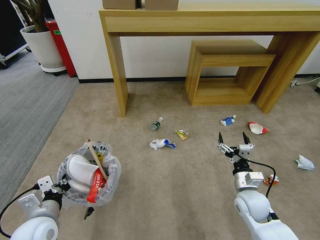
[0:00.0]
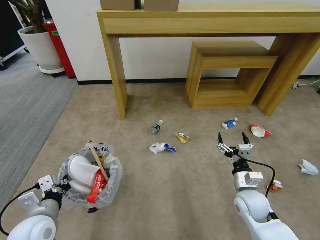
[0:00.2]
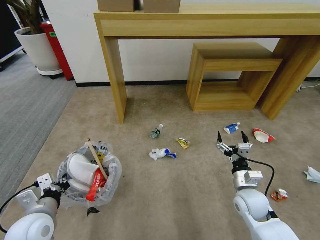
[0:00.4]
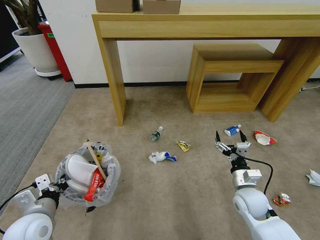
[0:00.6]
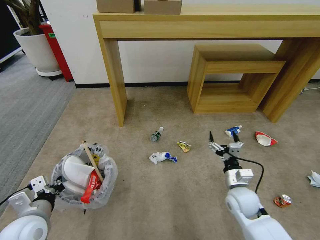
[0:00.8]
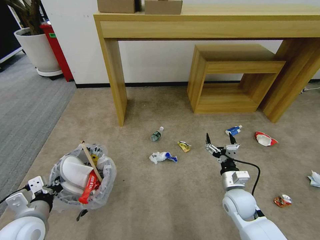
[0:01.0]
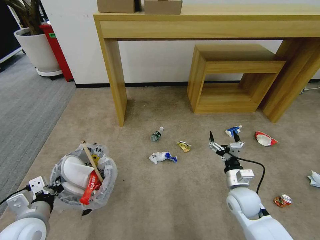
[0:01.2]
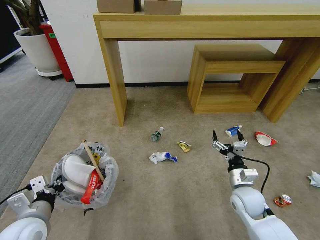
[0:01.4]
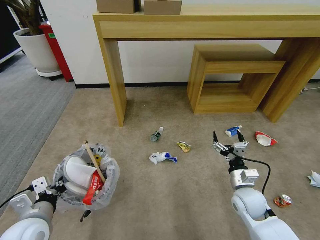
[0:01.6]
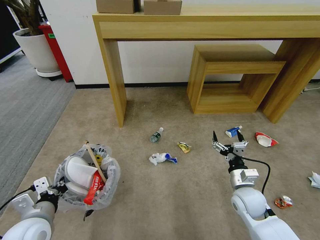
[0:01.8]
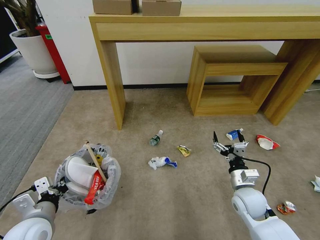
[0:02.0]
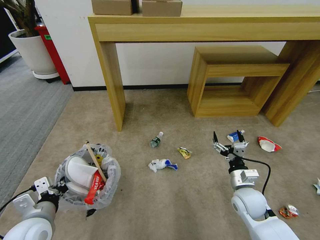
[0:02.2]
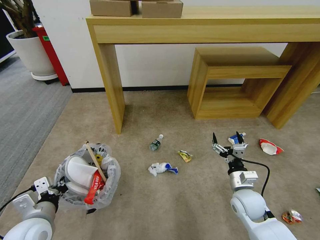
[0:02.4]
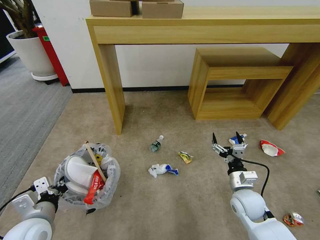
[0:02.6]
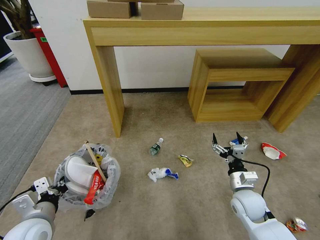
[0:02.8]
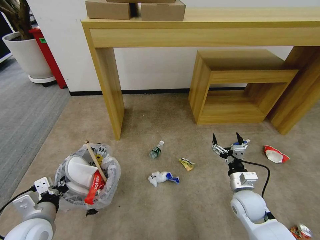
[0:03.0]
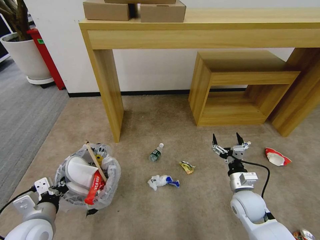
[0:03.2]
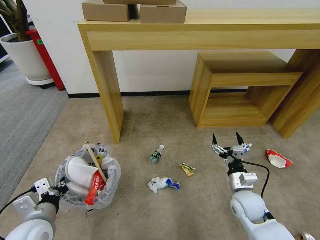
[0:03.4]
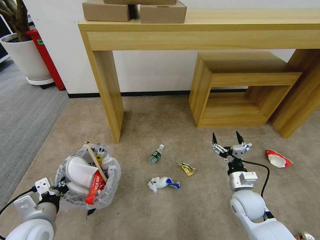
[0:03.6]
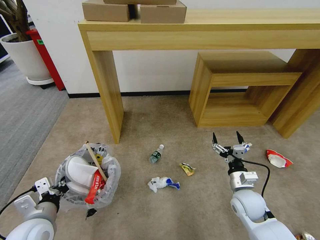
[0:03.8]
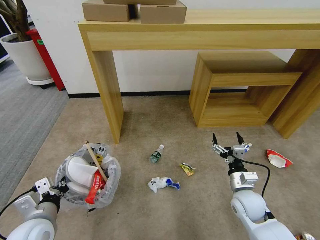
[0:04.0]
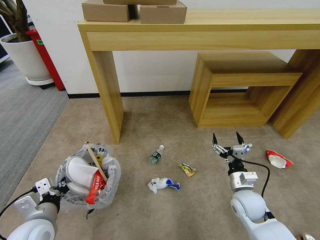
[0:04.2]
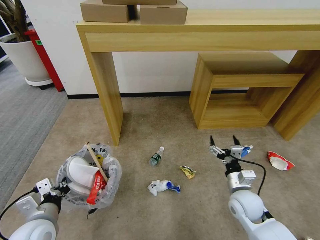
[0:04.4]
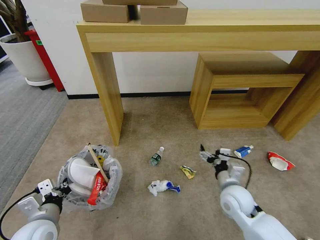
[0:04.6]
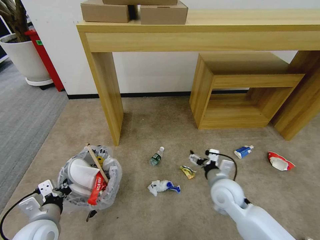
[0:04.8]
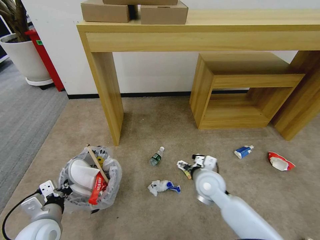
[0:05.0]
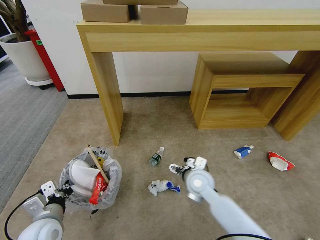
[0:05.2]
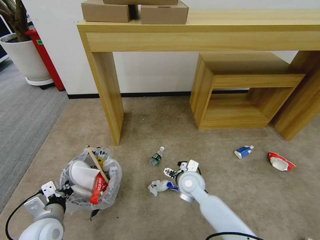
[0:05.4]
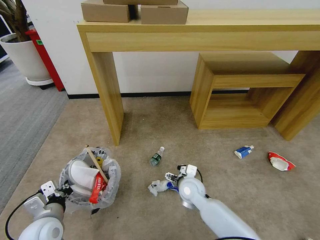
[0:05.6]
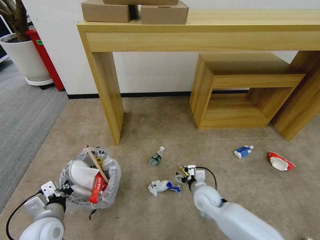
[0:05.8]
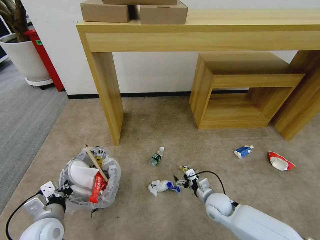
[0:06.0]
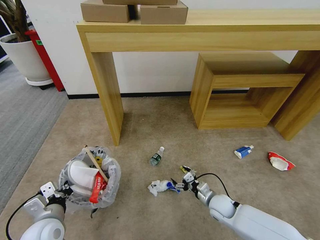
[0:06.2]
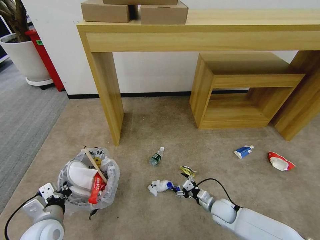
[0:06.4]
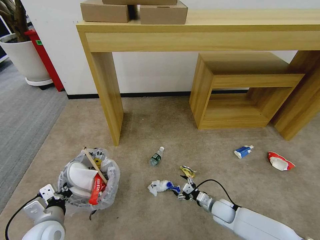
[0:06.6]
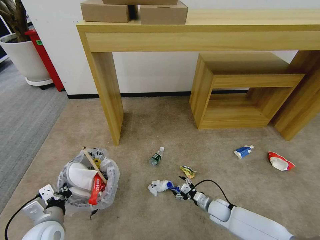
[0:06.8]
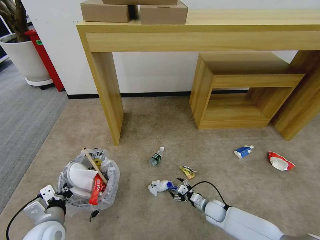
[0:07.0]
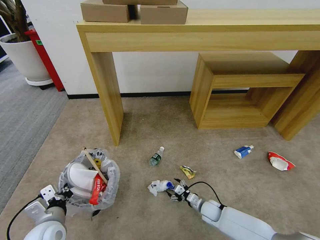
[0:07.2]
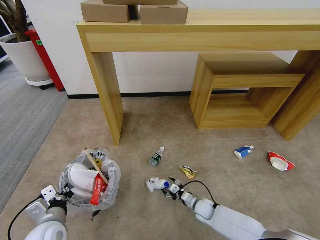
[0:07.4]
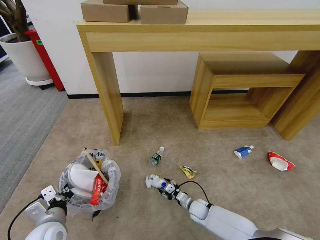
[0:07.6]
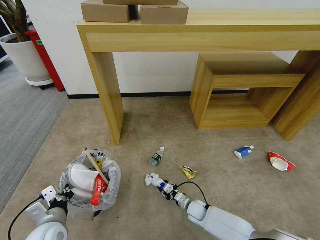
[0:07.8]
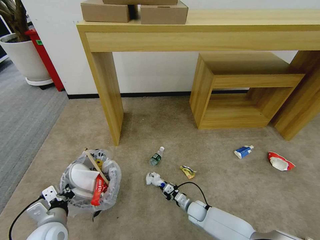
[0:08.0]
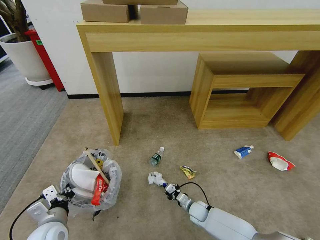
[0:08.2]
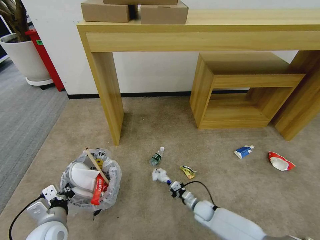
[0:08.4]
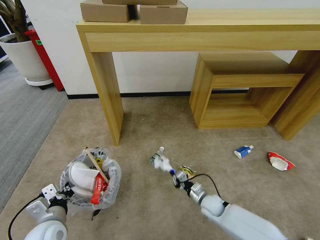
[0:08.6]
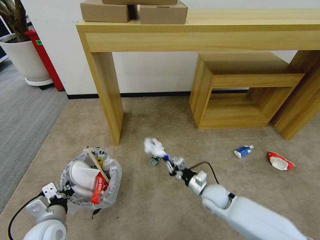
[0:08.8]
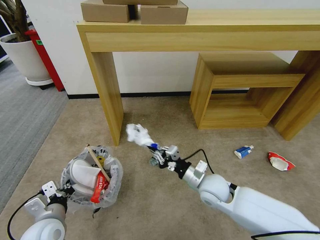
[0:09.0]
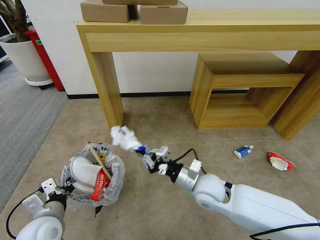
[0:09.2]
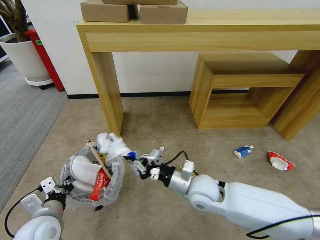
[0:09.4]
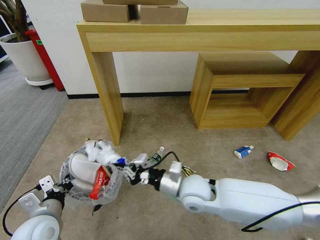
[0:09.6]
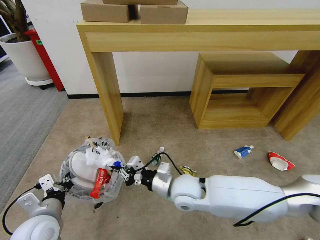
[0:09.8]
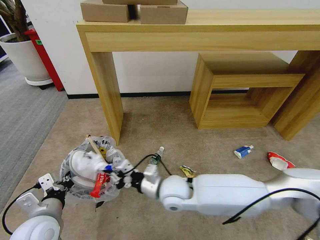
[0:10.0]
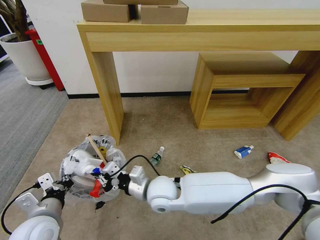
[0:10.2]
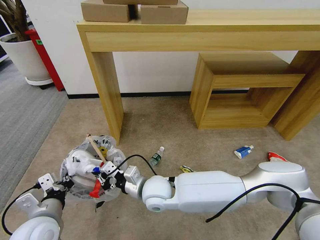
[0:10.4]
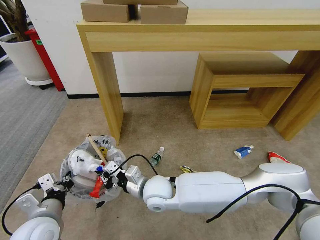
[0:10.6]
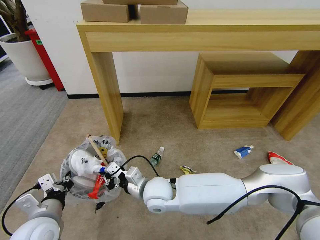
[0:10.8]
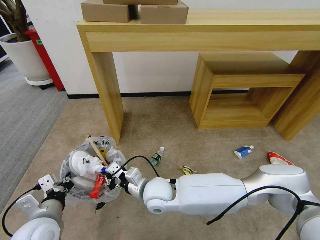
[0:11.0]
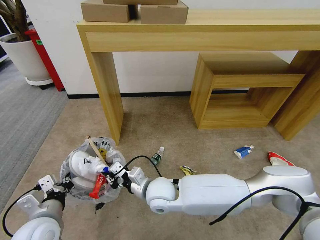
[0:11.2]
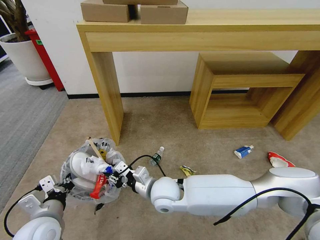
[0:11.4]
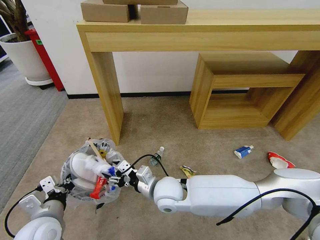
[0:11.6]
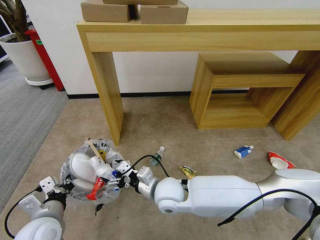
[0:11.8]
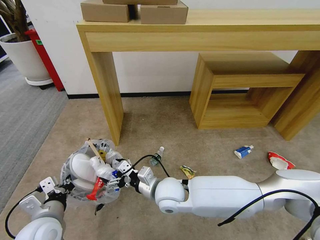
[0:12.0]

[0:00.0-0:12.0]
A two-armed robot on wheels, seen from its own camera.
Task of the whole recording: Pick up the trash bin and place the garbage on the floor into it.
0:03.0 to 0:04.4: Both grippers stay about where they are.
0:04.4 to 0:06.0: The right gripper travels downward and to the left by some 10 cm.
0:06.0 to 0:07.6: The right gripper shifts about 15 cm downward.
0:07.6 to 0:09.0: The right gripper moves upward, about 25 cm, and closes its fingers.
0:09.0 to 0:10.4: The right gripper moves to the left, approximately 20 cm; the left gripper changes place by some 5 cm.
0:10.4 to 0:12.0: The right gripper opens its fingers.

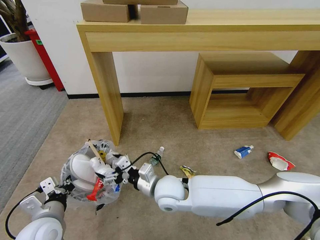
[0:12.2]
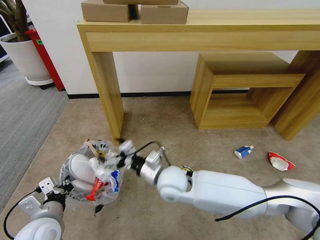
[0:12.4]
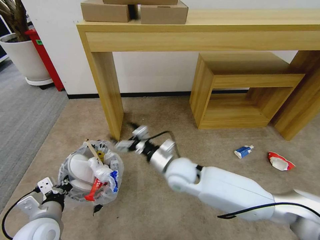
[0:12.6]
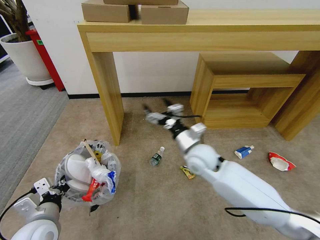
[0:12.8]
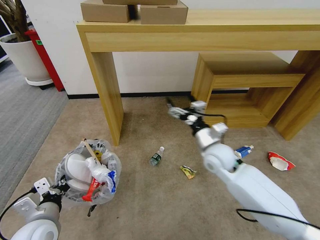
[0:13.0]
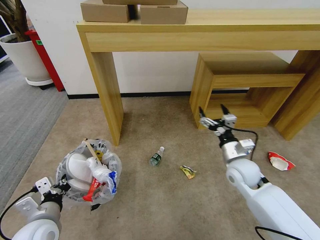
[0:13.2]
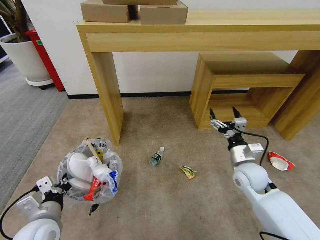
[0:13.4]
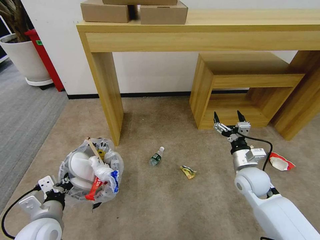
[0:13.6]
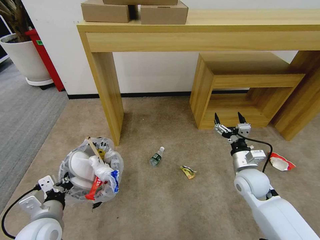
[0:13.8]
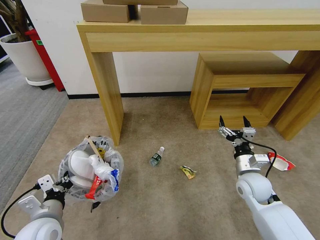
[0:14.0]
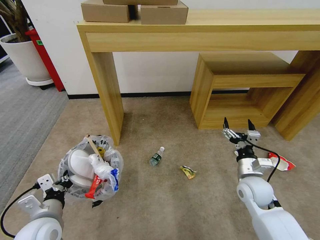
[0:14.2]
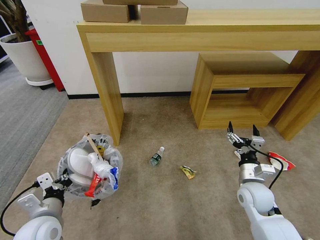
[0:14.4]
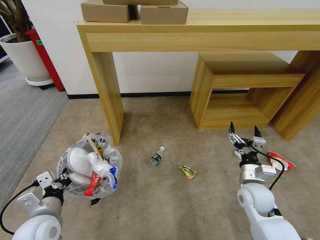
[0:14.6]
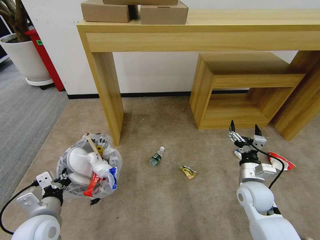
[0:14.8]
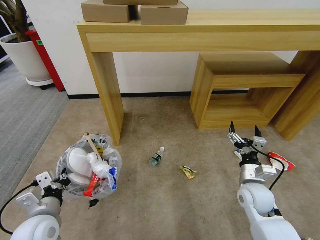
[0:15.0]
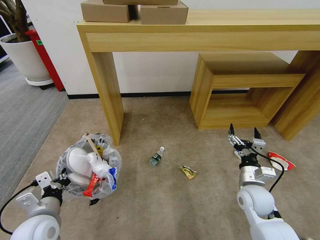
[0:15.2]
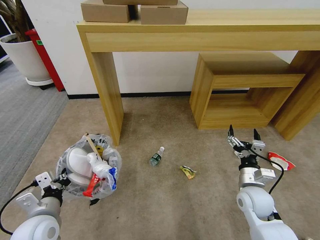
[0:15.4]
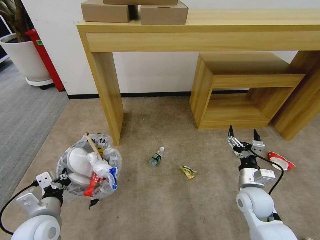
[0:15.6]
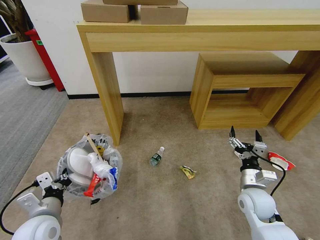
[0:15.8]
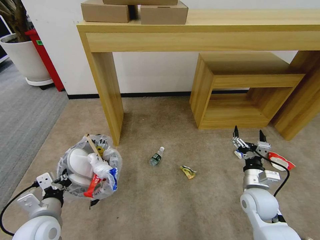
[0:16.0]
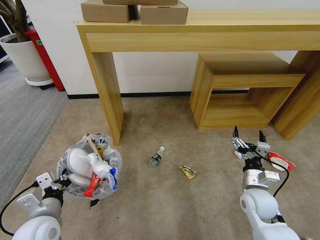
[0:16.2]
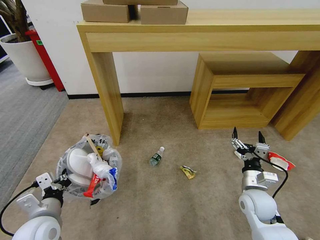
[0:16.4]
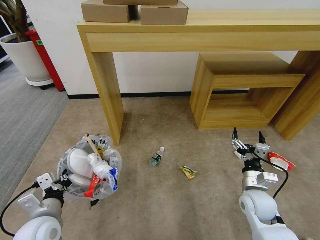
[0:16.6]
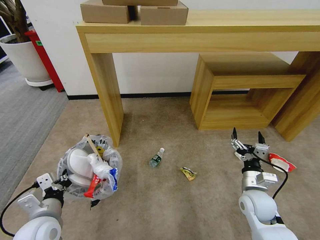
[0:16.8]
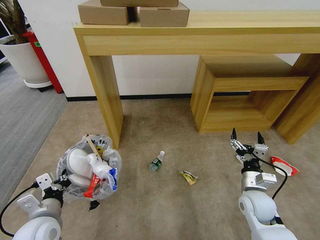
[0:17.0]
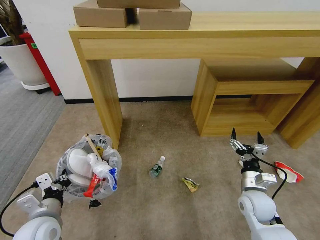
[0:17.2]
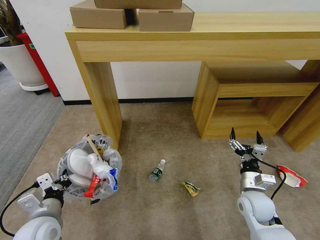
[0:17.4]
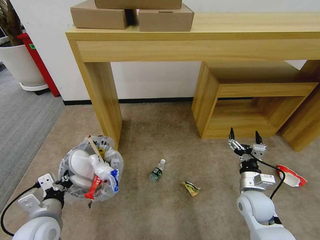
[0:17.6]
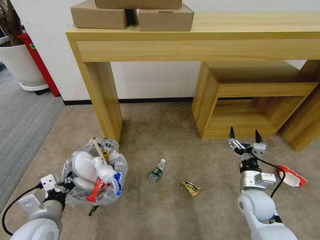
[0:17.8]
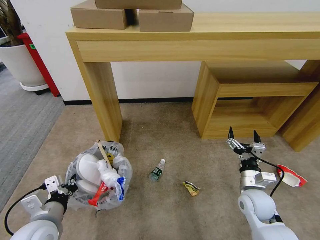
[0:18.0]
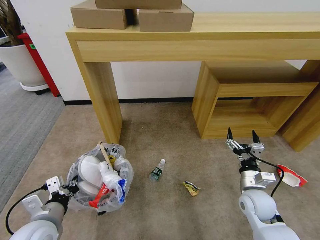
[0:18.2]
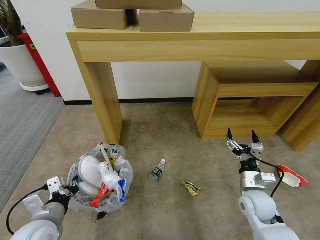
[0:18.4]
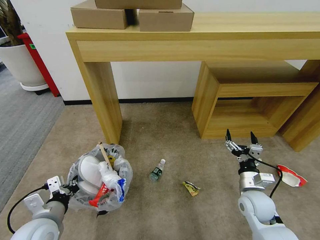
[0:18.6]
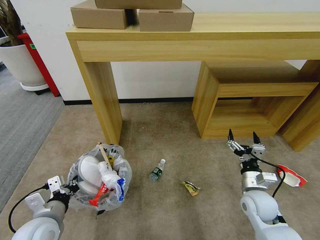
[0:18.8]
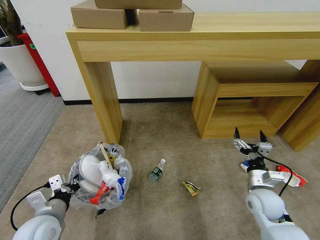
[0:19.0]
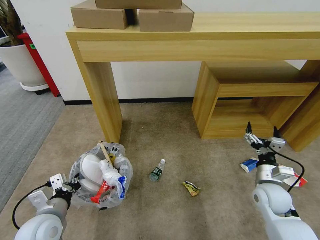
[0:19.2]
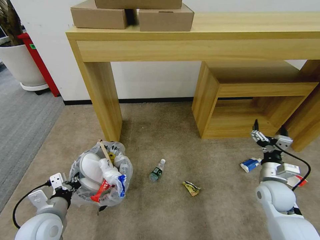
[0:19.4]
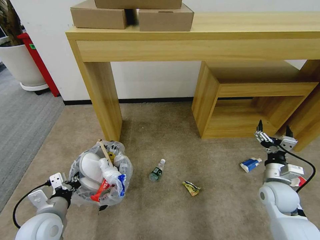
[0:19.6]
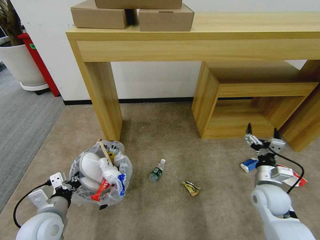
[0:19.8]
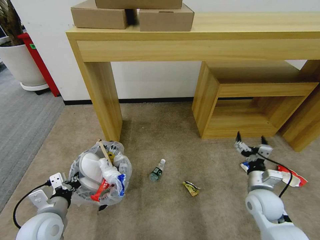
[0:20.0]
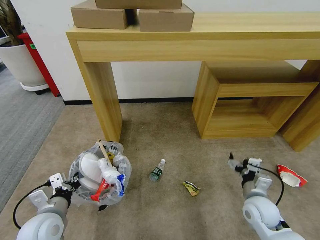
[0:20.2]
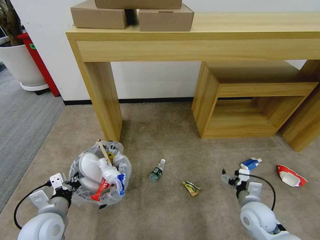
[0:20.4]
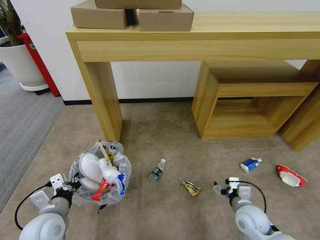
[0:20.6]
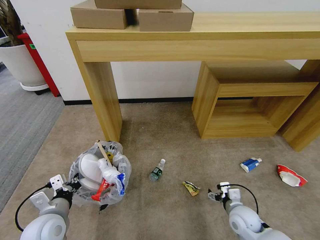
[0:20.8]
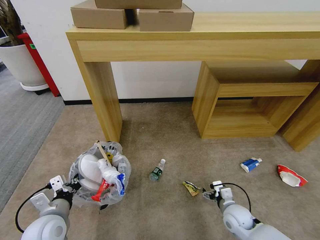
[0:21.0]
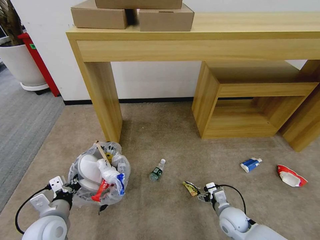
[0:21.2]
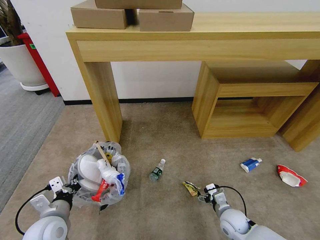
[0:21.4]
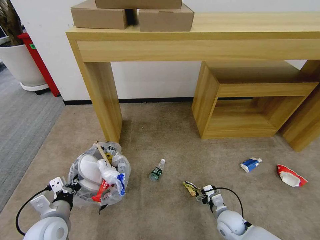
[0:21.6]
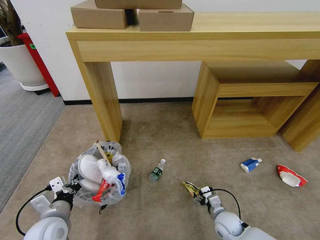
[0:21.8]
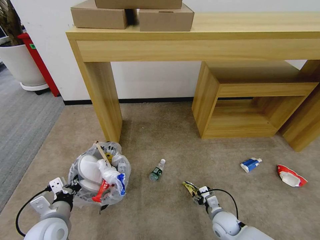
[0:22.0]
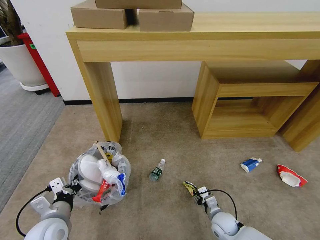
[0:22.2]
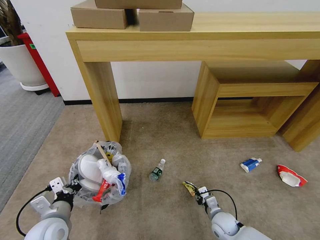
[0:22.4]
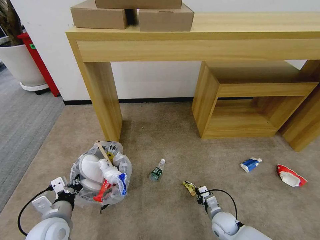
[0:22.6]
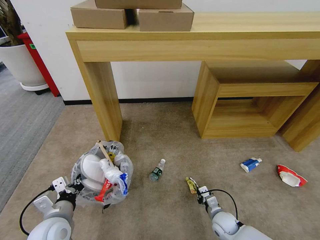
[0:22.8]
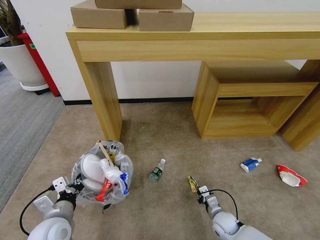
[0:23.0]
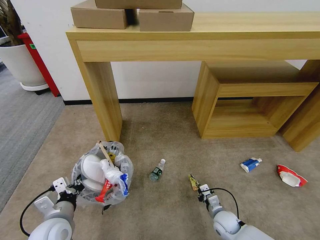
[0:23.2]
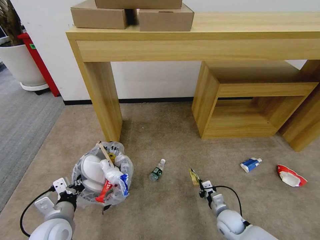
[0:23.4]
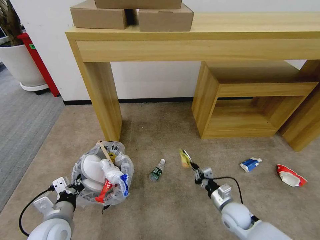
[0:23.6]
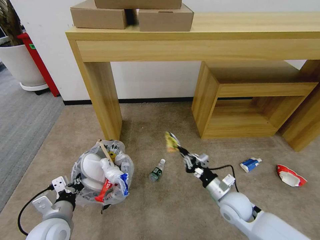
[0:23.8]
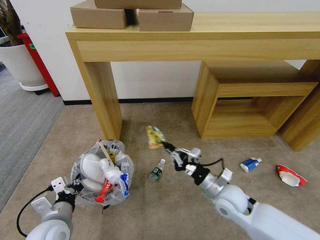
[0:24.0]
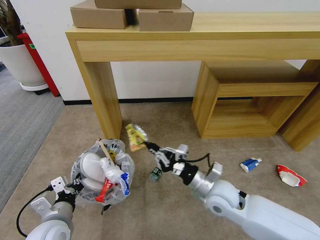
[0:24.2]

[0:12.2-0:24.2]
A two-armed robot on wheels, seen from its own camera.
Task of the whole recording: Pick up the trash bin and place the garbage on the floor into it.
0:12.2 to 0:13.8: The right gripper is displaced to the right by roughly 30 cm.
0:13.8 to 0:15.2: There are only small adjustments of the grippers.
0:15.2 to 0:16.6: There are only small adjustments of the grippers.
0:19.8 to 0:21.2: The right gripper goes approximately 15 cm downward and to the left.
0:21.2 to 0:22.6: The right gripper travels downward by about 5 cm, and closes.
0:22.6 to 0:24.2: The right gripper is displaced upward by about 25 cm.
